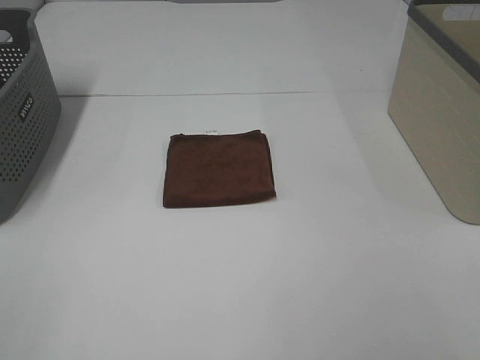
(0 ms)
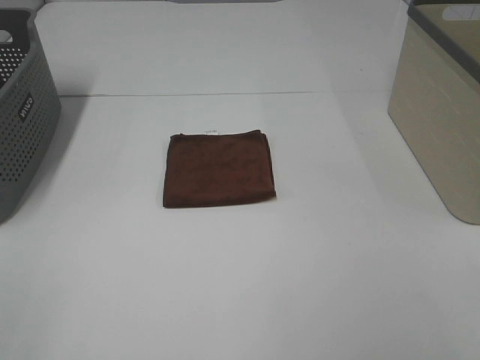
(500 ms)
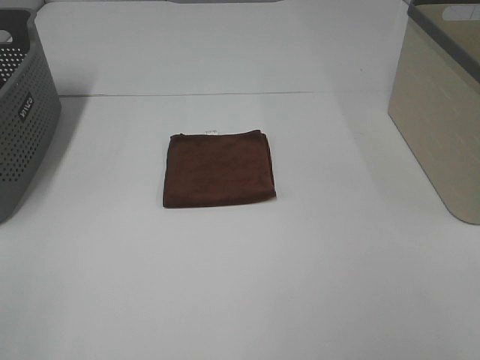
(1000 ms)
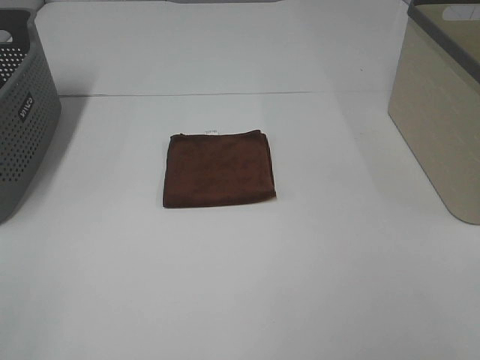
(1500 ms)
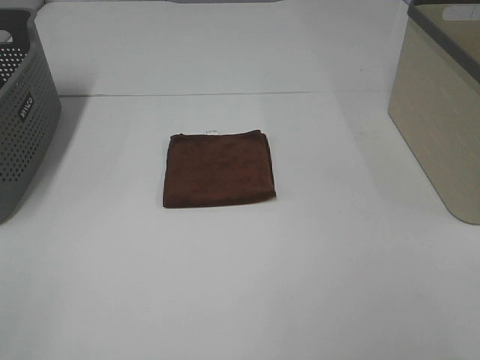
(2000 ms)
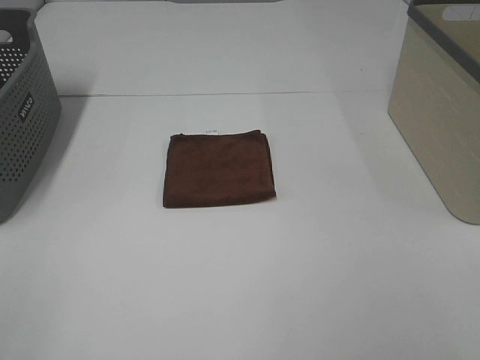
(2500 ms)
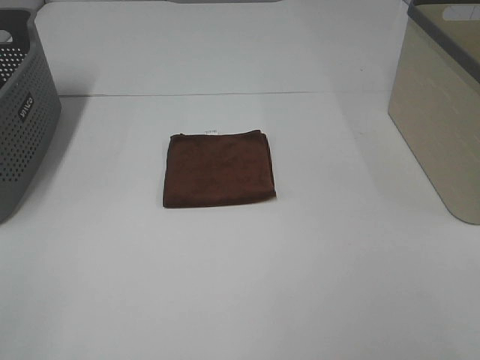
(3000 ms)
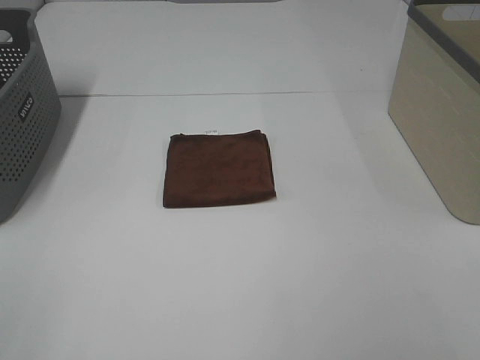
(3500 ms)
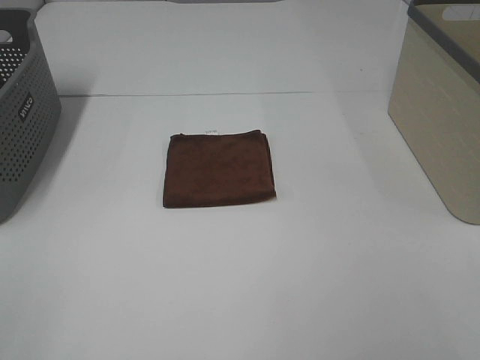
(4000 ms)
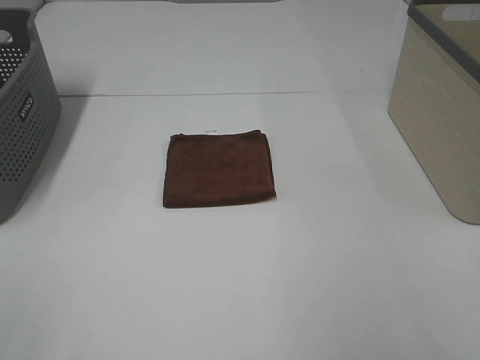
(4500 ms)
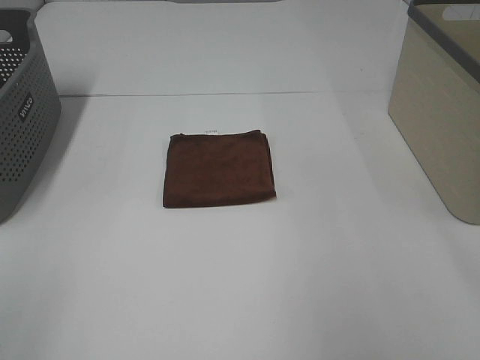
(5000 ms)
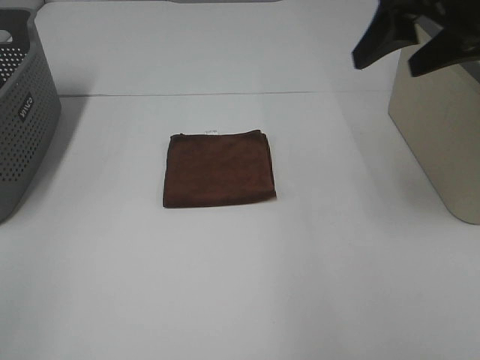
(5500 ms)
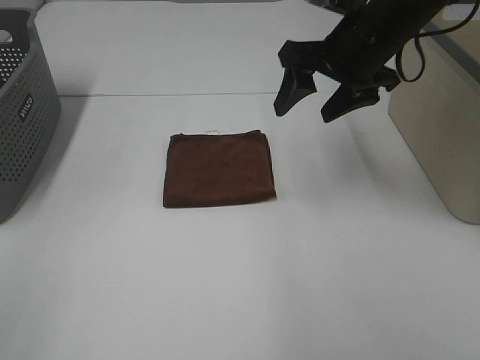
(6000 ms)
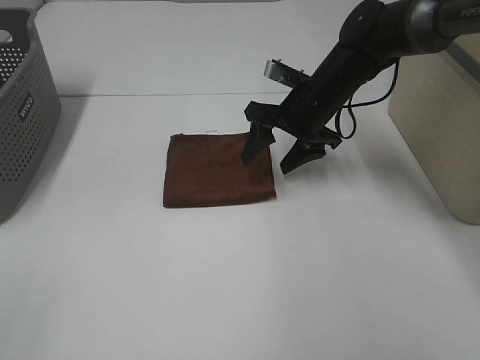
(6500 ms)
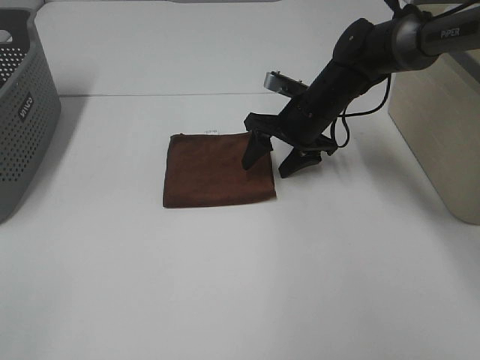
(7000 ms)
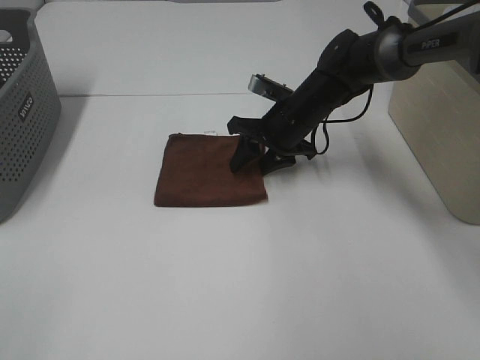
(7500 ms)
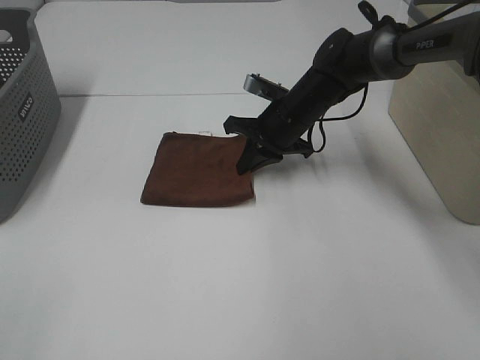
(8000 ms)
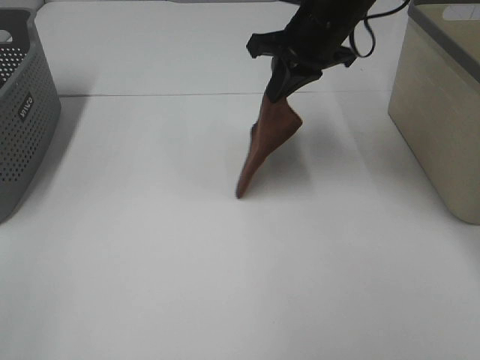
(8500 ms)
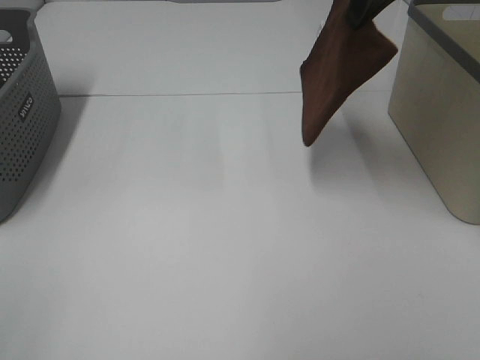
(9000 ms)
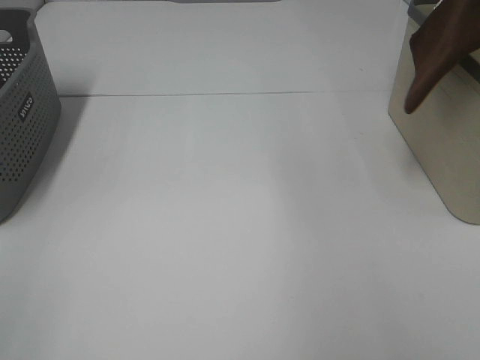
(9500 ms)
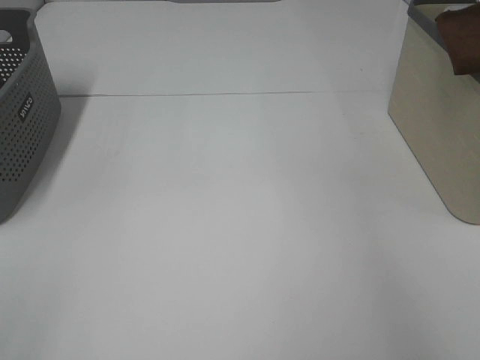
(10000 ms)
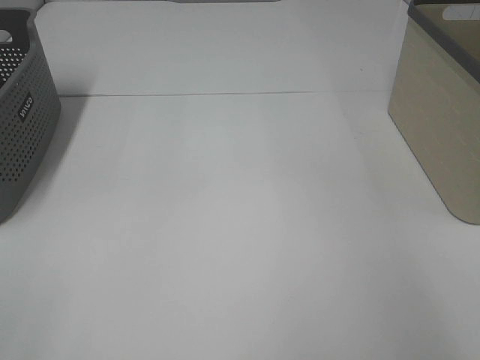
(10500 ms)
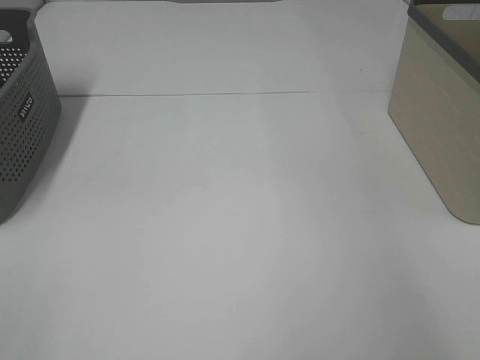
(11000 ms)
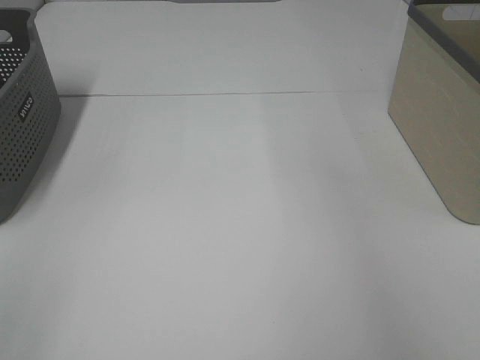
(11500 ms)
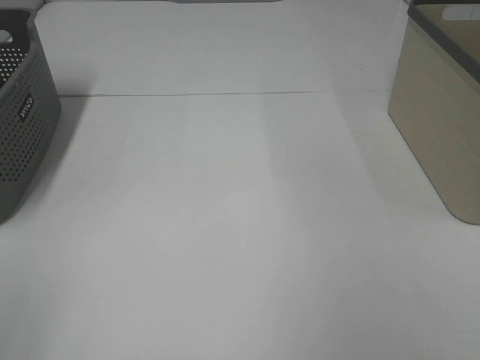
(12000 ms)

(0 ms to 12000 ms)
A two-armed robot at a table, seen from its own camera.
Step, 0 ms - 7500 ms: Right hand: grab the folded brown towel.
Step, 8000 ms - 10500 ms: Right hand: place the brown towel in right basket.
0 ms - 4000 ms: The two grippers keep their place.
4000 ms - 6000 ms: The right gripper is displaced forward by approximately 40 cm.
6000 ms - 8000 ms: The right gripper moves downward, forward and to the left, about 15 cm, and closes its fingers.
8000 ms - 10000 ms: The right gripper travels to the right and upward by about 40 cm.
10000 ms - 12000 ms: The right gripper travels backward and to the left by roughly 20 cm, and opens.

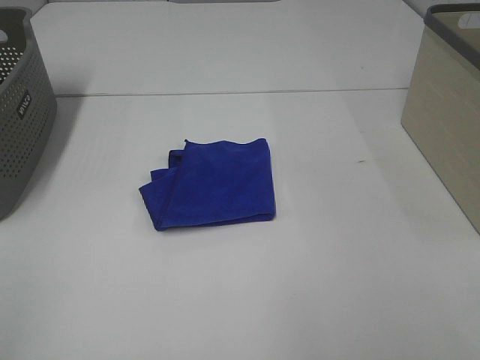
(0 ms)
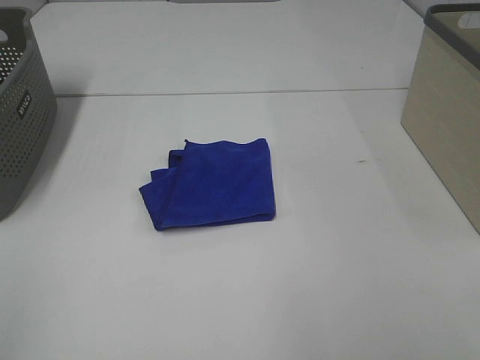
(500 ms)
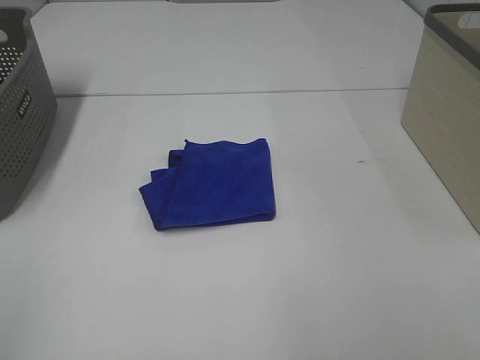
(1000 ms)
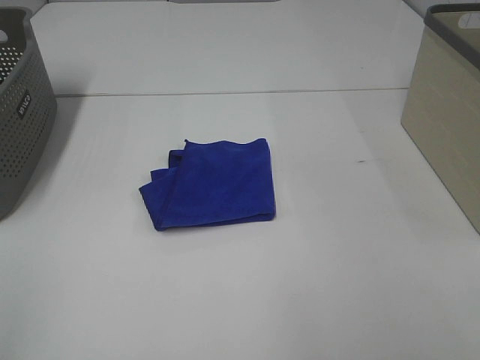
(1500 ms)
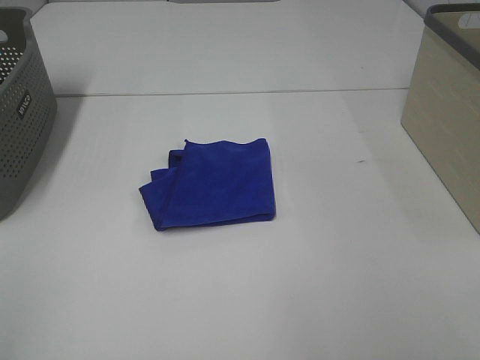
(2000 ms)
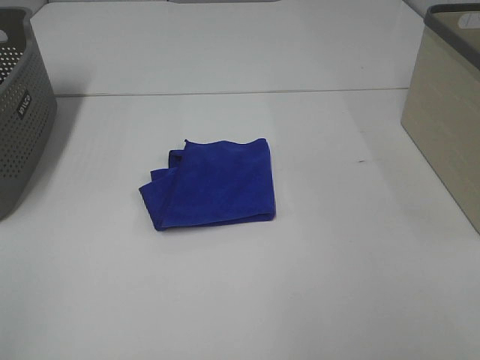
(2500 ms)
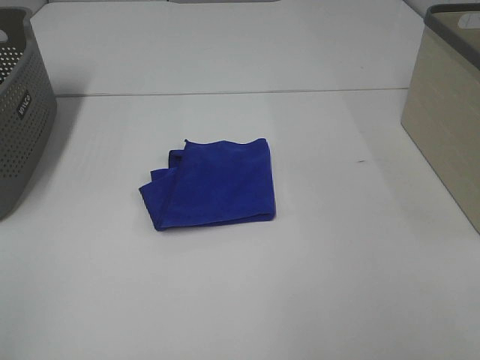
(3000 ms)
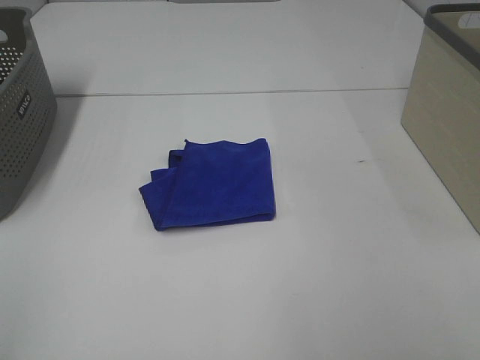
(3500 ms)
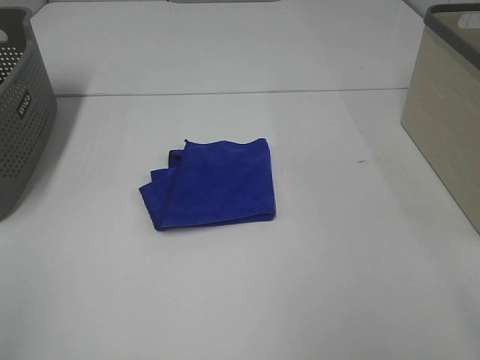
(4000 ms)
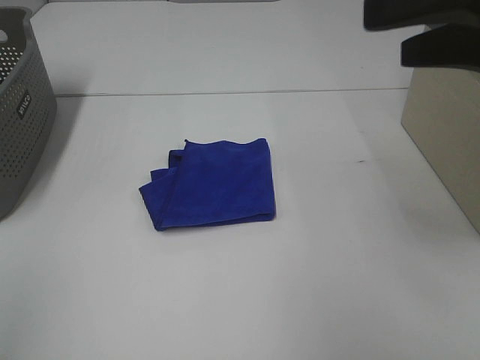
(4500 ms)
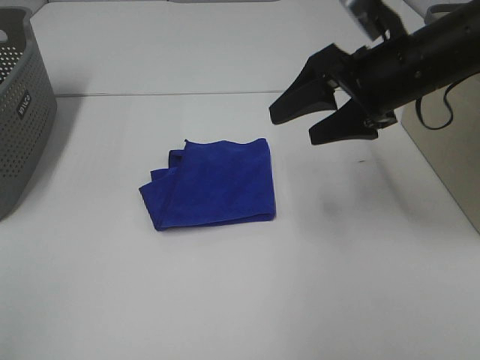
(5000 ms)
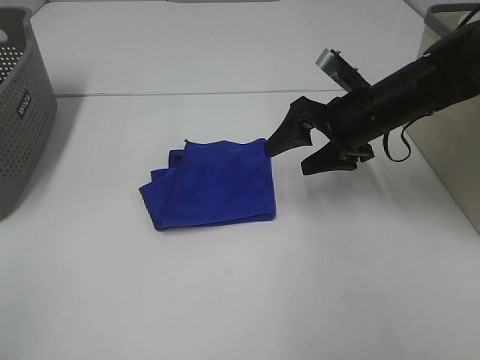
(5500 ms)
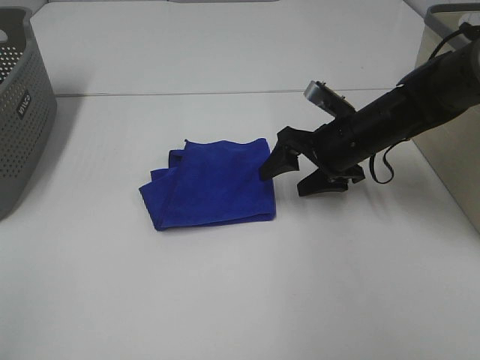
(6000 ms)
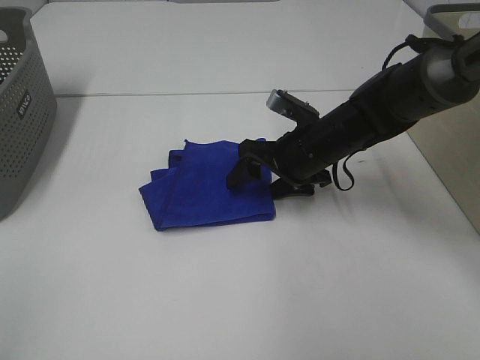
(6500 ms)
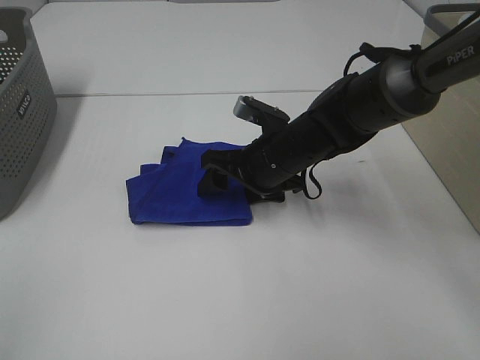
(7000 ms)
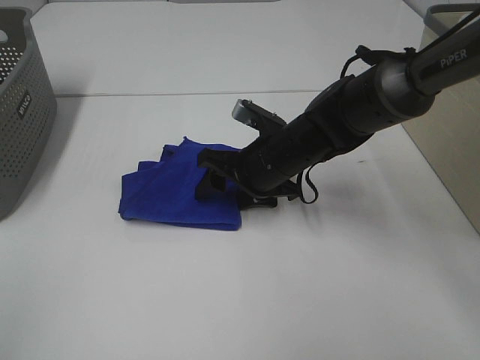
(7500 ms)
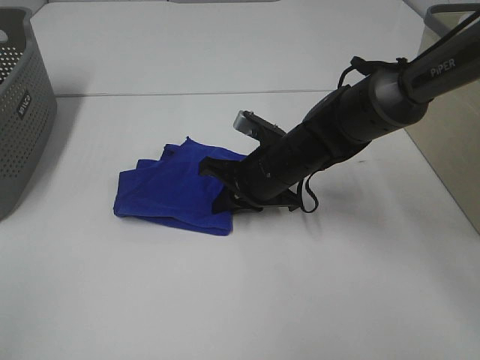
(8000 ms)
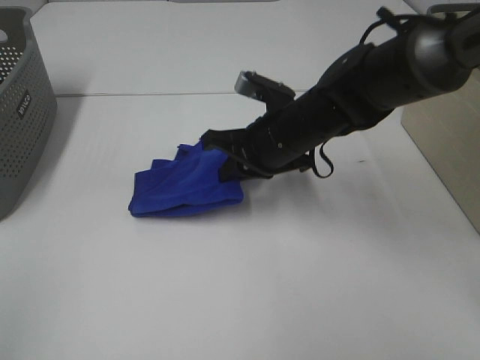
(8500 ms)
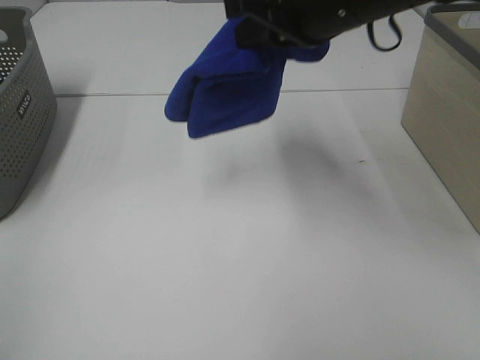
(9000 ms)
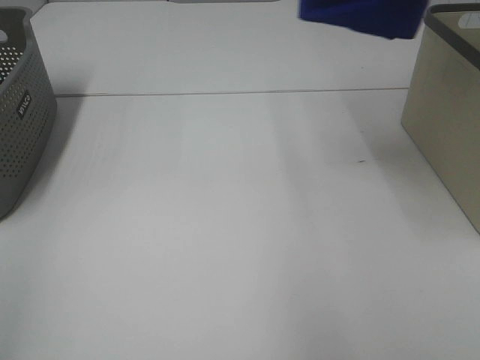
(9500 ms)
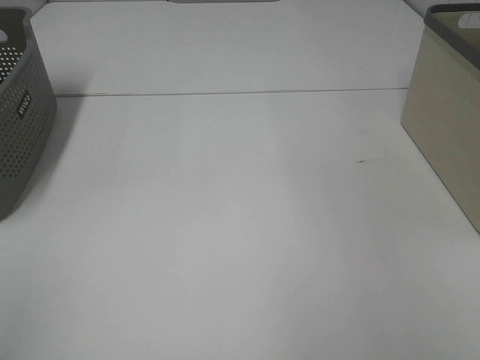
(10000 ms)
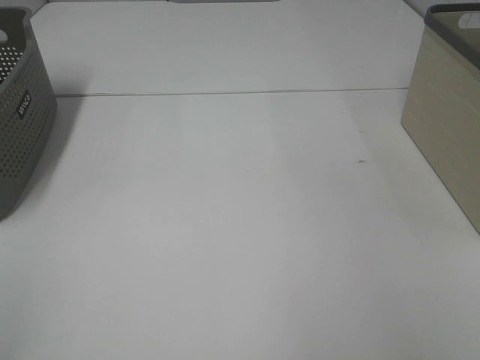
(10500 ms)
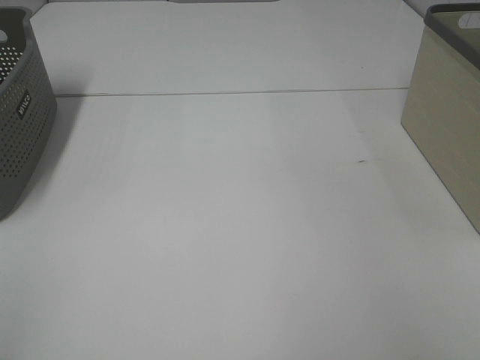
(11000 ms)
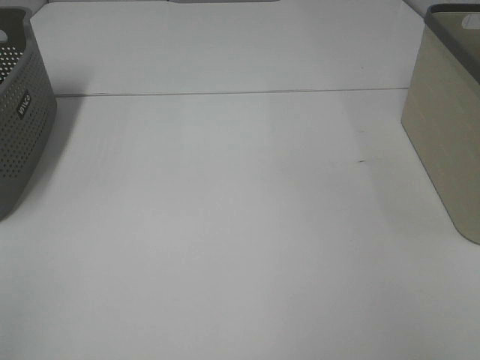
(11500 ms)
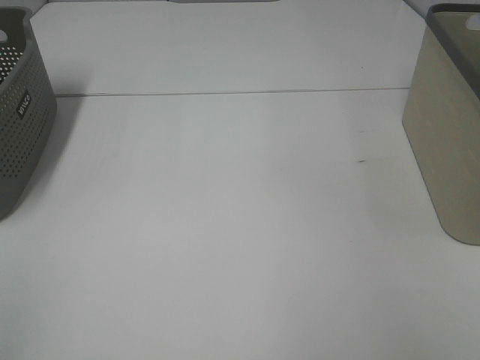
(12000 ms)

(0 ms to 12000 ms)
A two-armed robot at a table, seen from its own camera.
Step, 0 ms - 8000 ms: Right hand: grab the folded blue towel.
0 ms - 2000 ms: Neither gripper changes place.
4000 ms - 6000 ms: The right gripper moves forward and downward, roughly 40 cm.
6000 ms - 8000 ms: The right gripper shifts roughly 10 cm to the left, and closes its fingers.
8000 ms - 10000 ms: The right gripper goes approximately 40 cm upward and to the right.
10000 ms - 12000 ms: The right gripper goes about 15 cm downward, and opens its fingers.

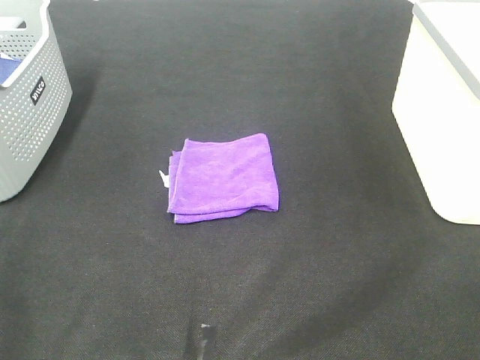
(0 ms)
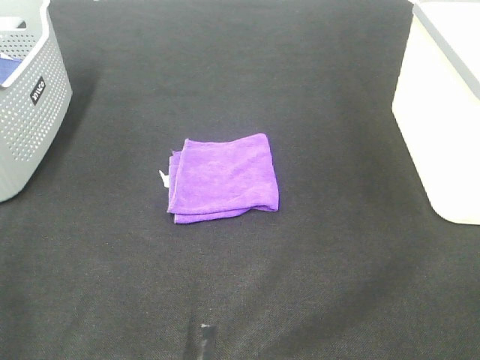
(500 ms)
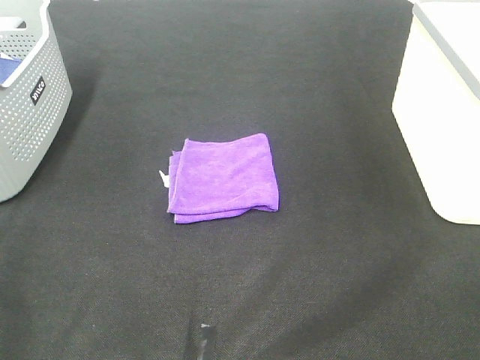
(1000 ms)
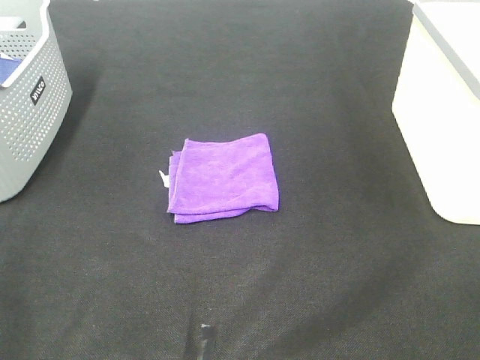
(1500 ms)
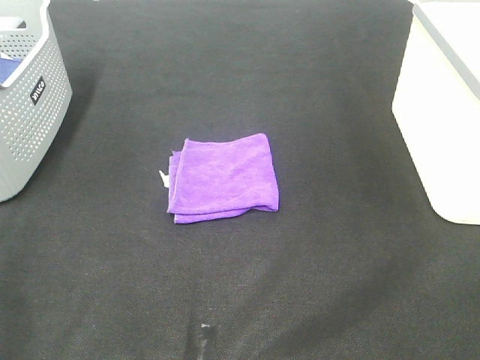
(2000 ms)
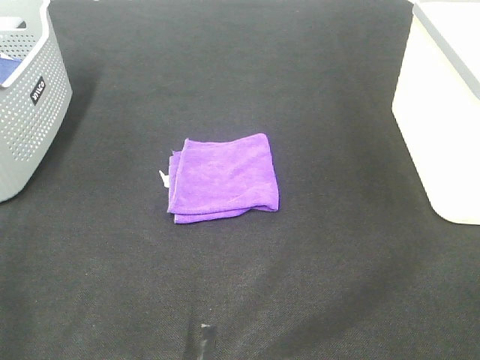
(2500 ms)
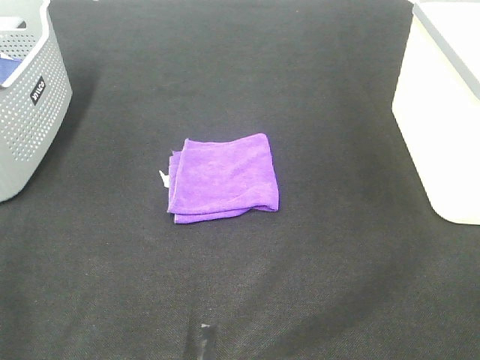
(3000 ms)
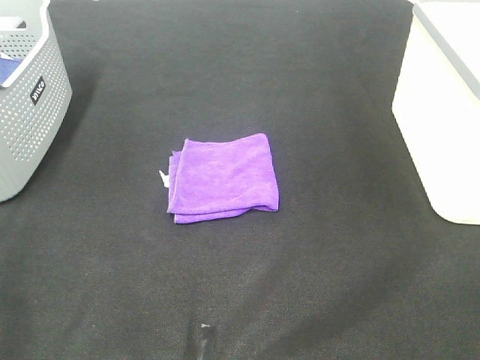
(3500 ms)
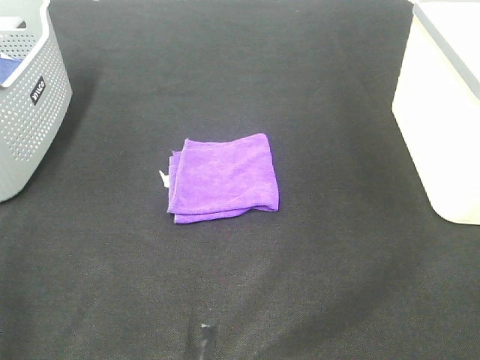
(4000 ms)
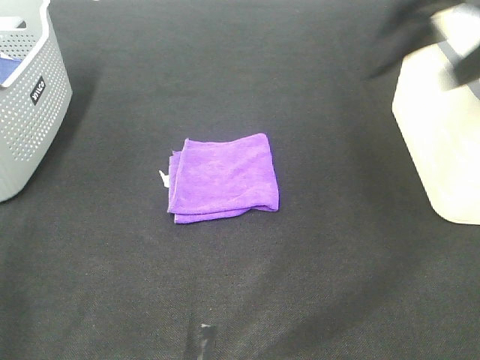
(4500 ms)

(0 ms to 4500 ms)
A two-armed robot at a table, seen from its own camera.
0 ms - 2000 ms: Neither gripper changes place.
2000 ms - 4500 ms: The right gripper is displaced forward by some 30 cm.
